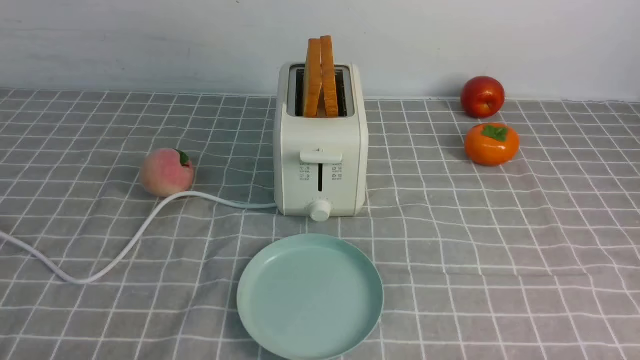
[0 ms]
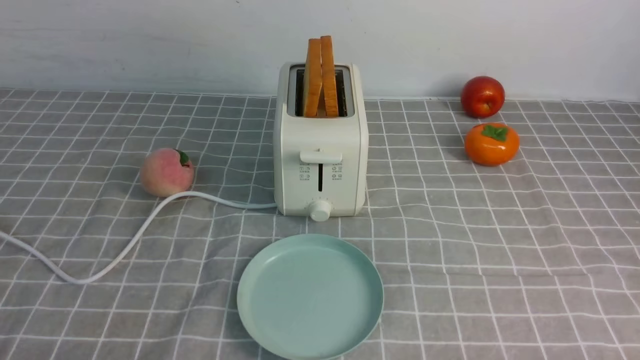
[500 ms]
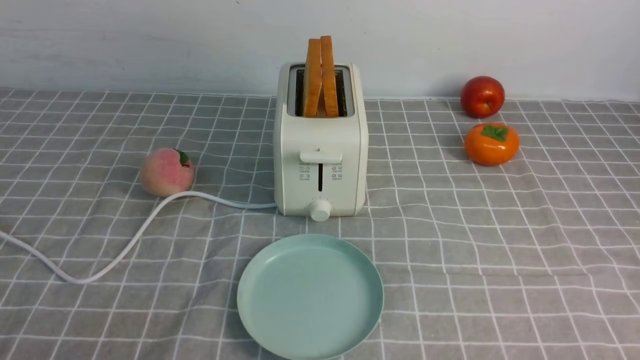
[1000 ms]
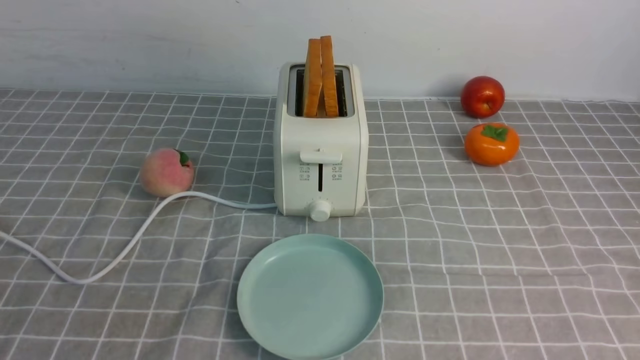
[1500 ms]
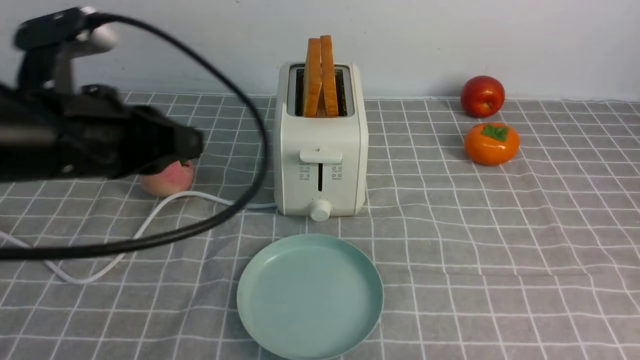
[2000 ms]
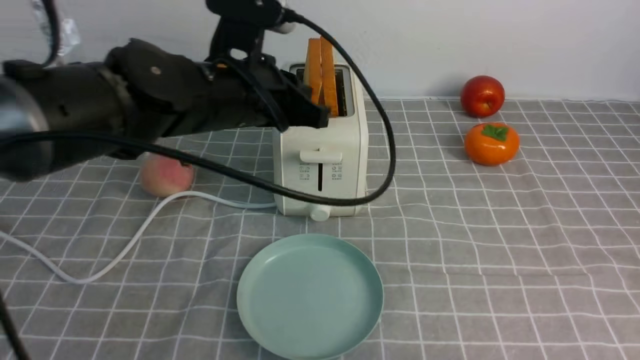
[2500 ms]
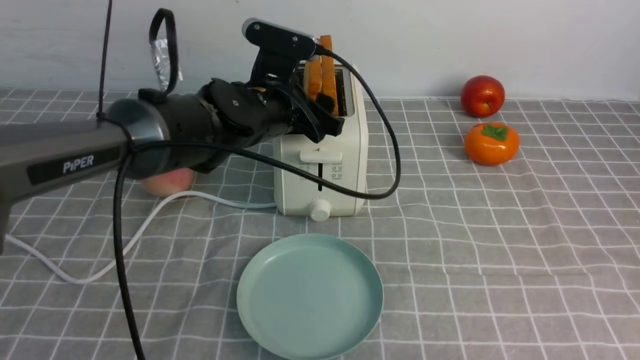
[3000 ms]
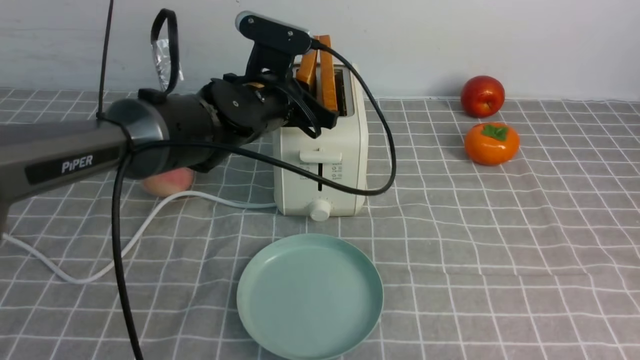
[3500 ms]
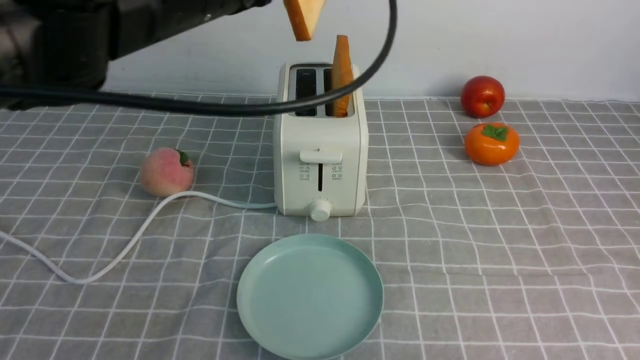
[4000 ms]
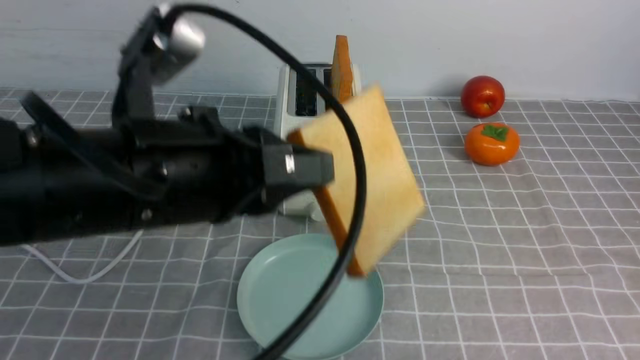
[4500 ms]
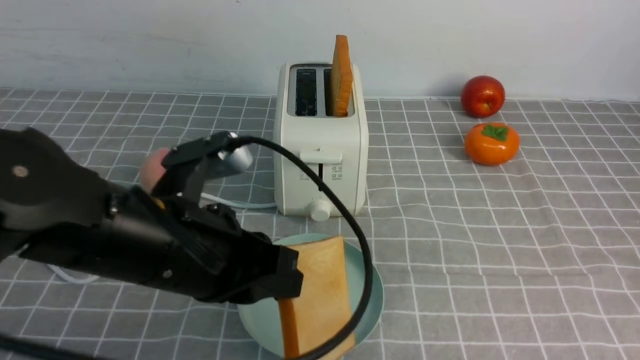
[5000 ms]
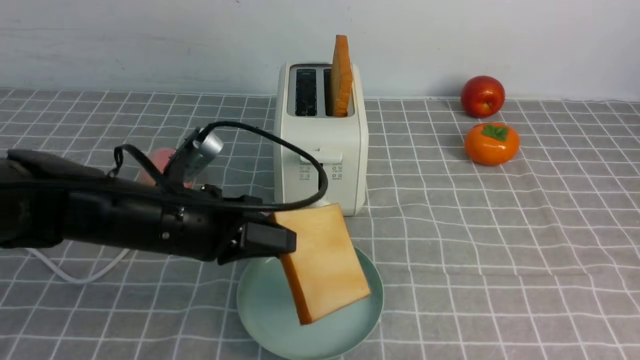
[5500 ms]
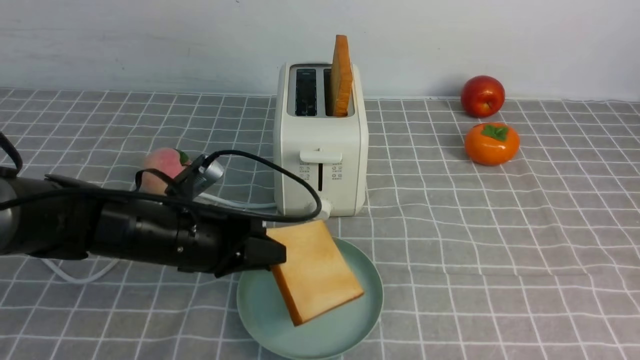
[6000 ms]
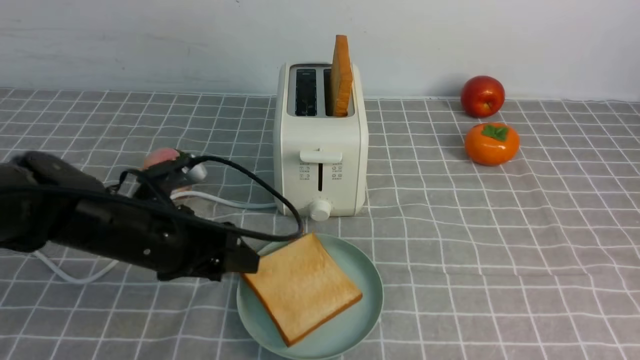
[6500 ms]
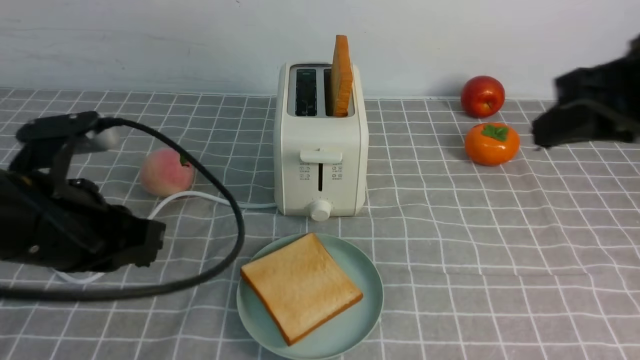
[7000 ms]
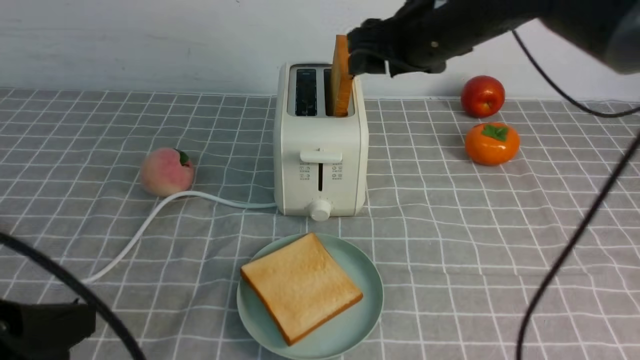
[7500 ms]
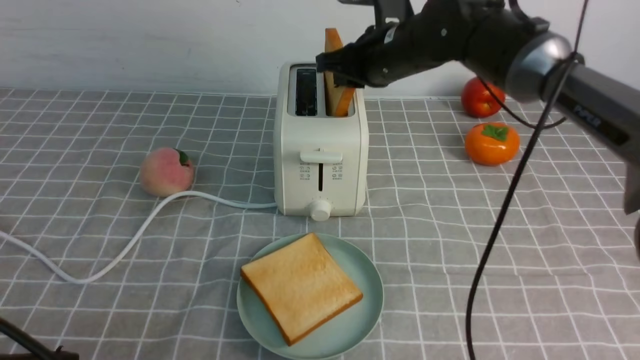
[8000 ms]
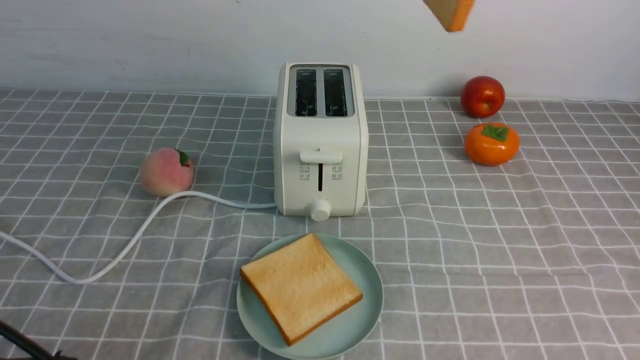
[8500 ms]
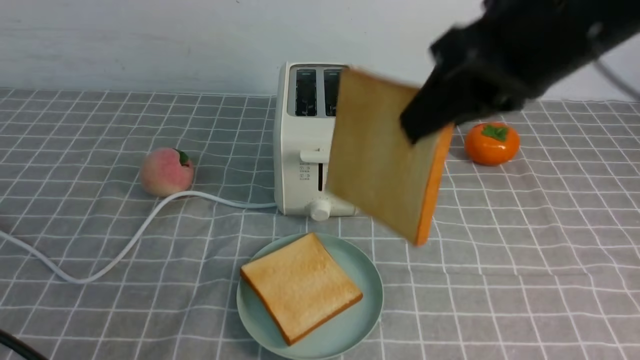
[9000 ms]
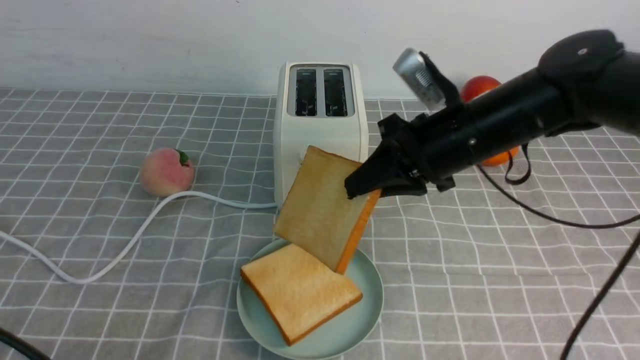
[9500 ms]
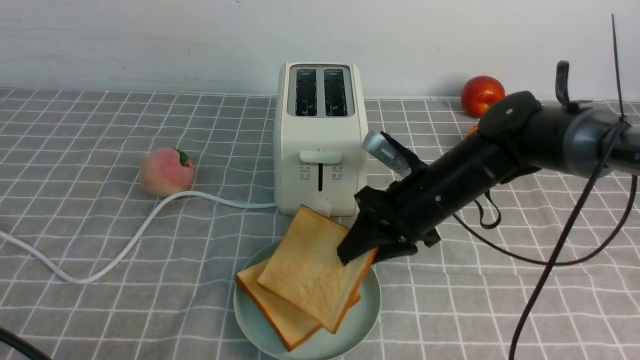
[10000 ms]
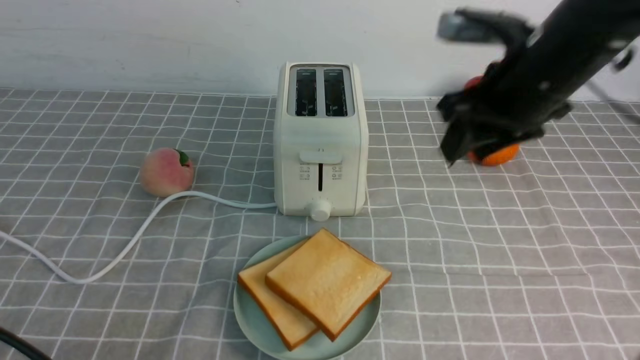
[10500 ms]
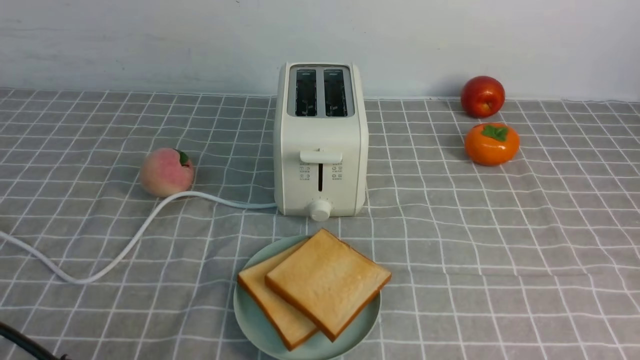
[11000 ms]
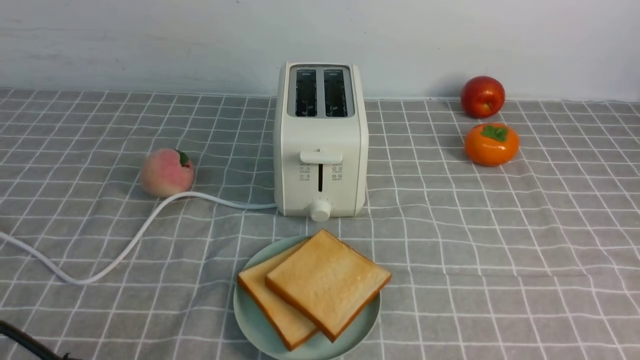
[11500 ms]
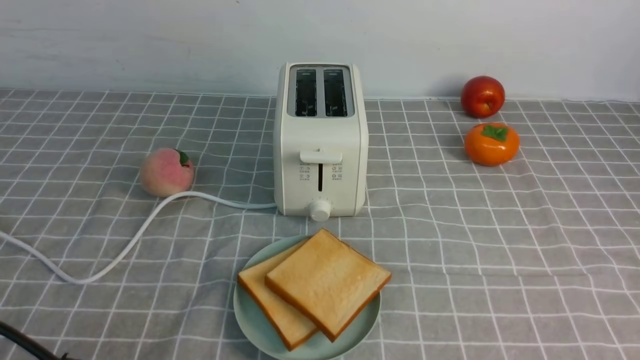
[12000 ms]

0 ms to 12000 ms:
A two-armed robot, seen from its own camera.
Task of the whole recording: take toasted bread from bread machine on grey coffee table place on plate.
Step, 0 ms to 3500 ms: use the left arm to take out a slice of bread.
Step, 4500 ms to 6500 ms: use the left arm to put a slice of bread into the empty plate.
Step, 7000 ms to 8000 ms: use the right arm to take out a slice of bread.
Step, 8500 ms to 10000 ms: use the right arm to put a slice of bread into the plate.
0 ms to 2000 ms: The right gripper is displaced upward by some 20 cm, and closes its fingers, while the left gripper heads forward and upward, covering approximately 25 cm, and closes its fingers.
2000 ms to 4000 ms: The left gripper shifts roughly 10 cm upward and to the right, travels forward and back again, about 15 cm each way, and opens and closes again.
4000 ms to 6000 ms: The left gripper is displaced downward by approximately 25 cm, and opens its fingers.
6000 ms to 8000 ms: The left gripper goes roughly 25 cm backward and upward, and closes up. Meanwhile the right gripper is displaced forward and to the left by some 40 cm, and opens, then closes again.
8000 ms to 10000 ms: The right gripper heads downward and backward, covering approximately 15 cm.
10000 ms to 12000 ms: The right gripper is displaced backward and to the right by roughly 40 cm, and closes its fingers.

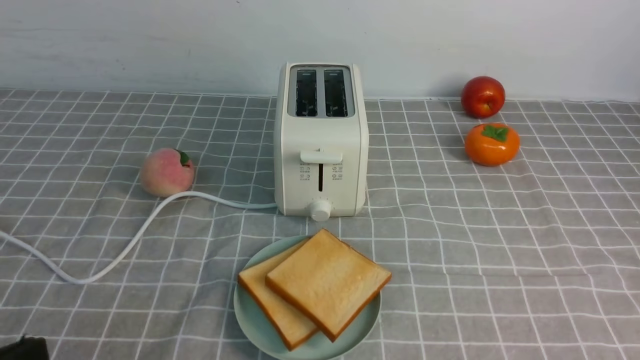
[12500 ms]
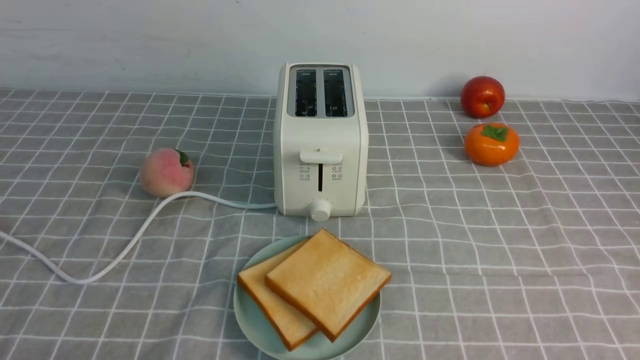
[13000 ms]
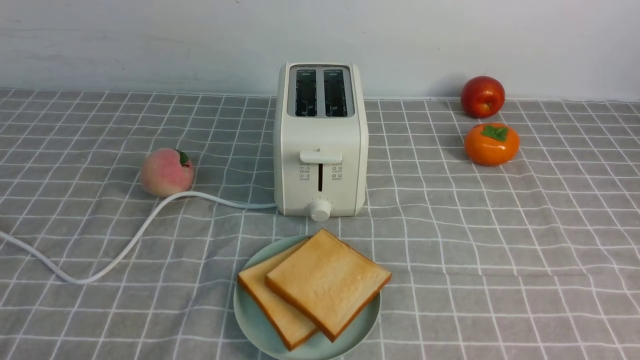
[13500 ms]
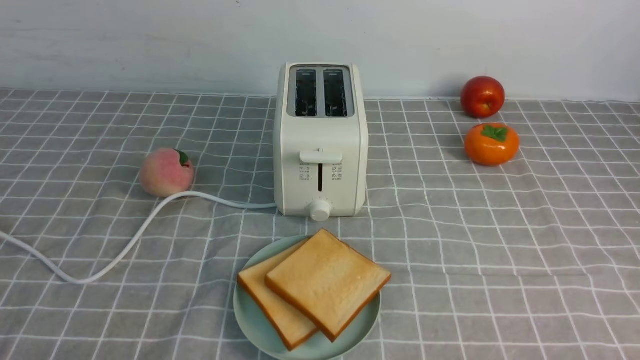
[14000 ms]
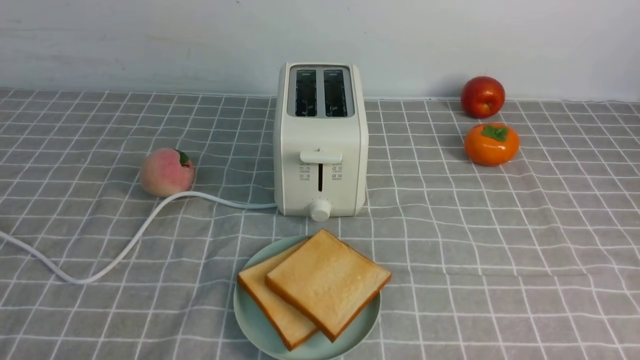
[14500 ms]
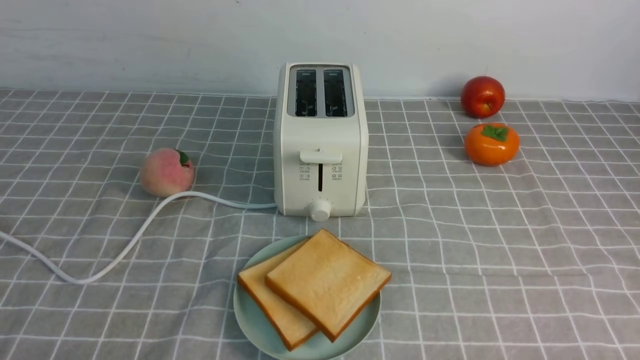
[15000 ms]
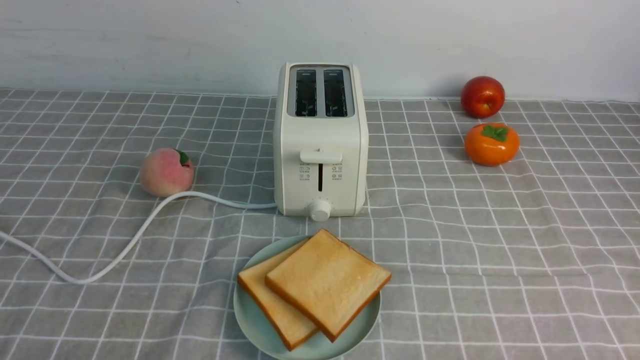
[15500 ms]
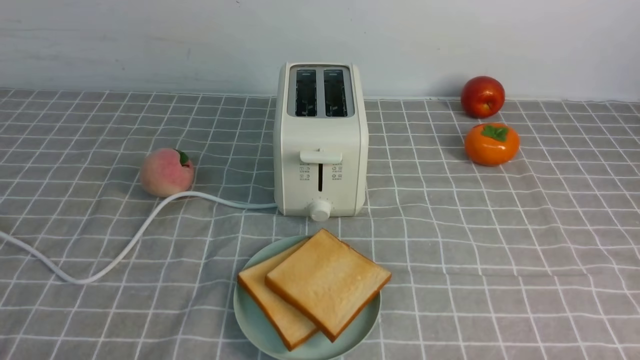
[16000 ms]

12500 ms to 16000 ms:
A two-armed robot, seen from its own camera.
Task of the whole recording: take toasted bread from bread machine on grey coffee table place on plate.
14500 ms to 16000 ms: Both grippers stay about where they are.

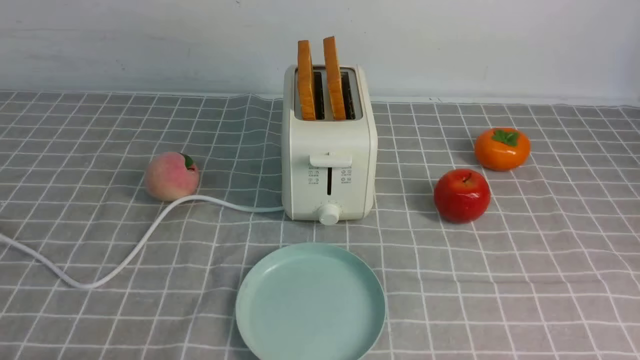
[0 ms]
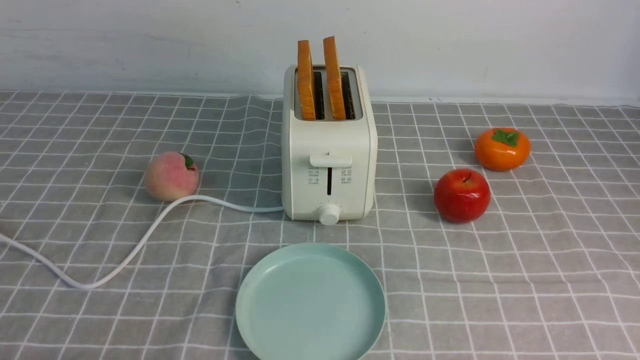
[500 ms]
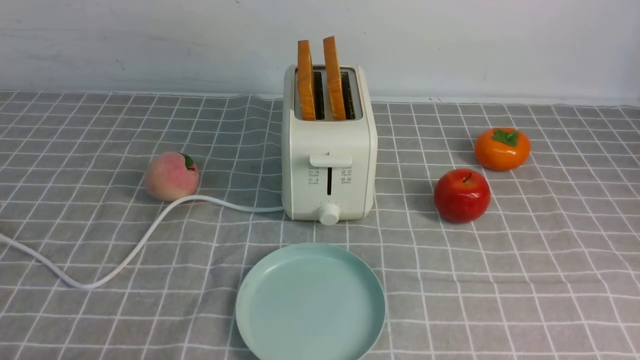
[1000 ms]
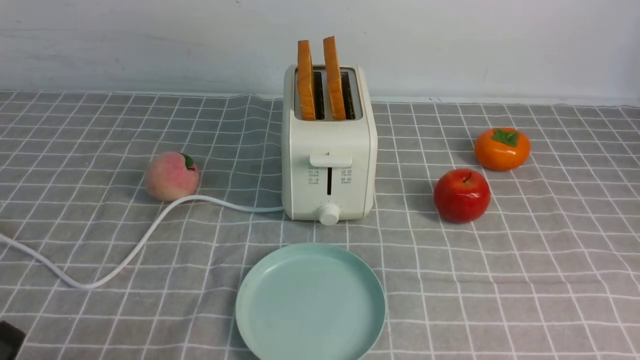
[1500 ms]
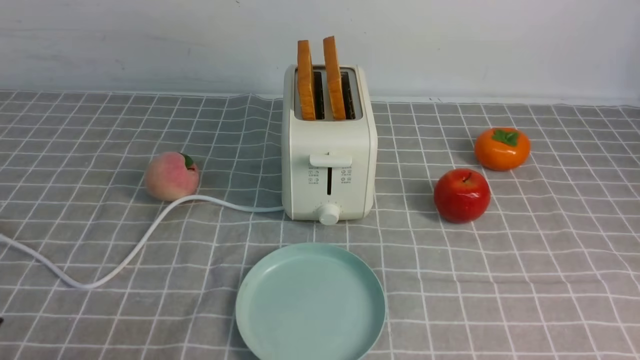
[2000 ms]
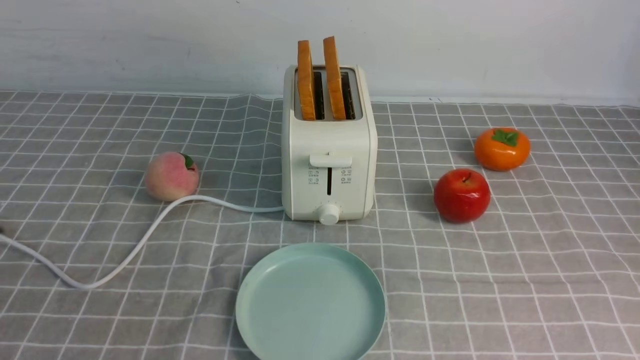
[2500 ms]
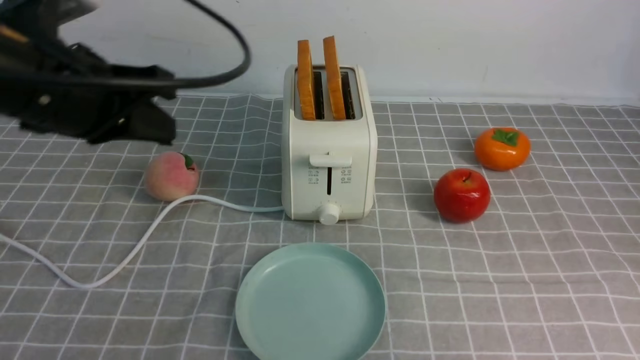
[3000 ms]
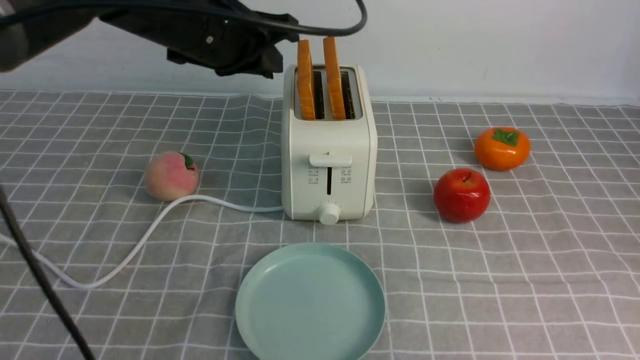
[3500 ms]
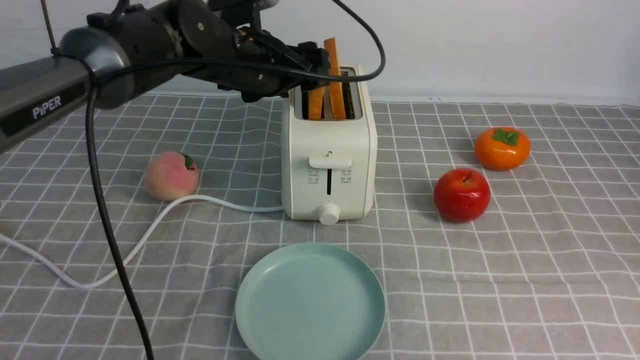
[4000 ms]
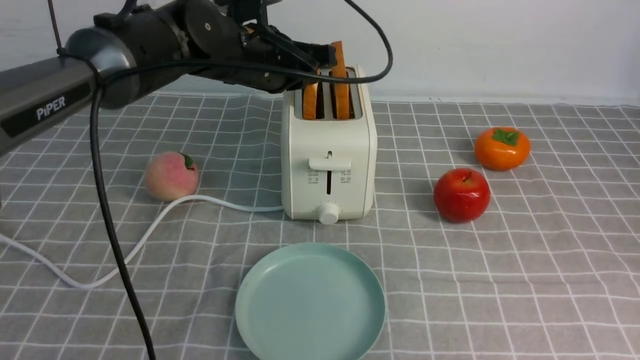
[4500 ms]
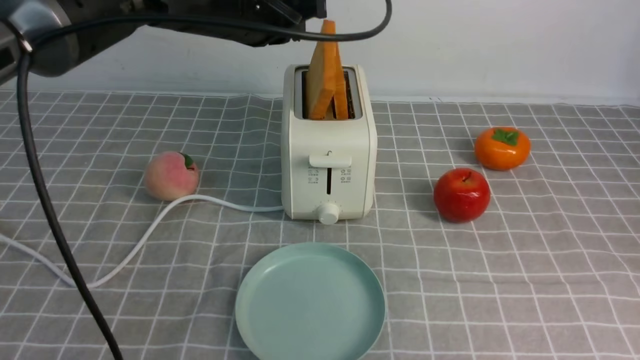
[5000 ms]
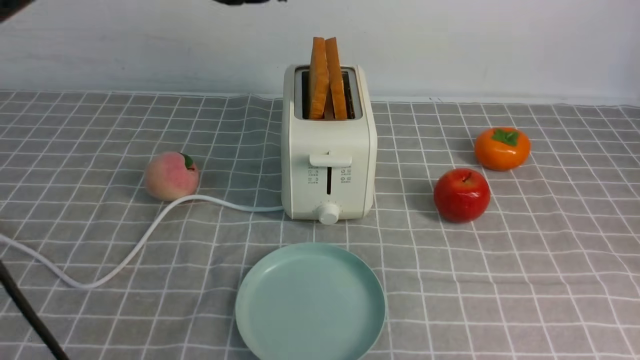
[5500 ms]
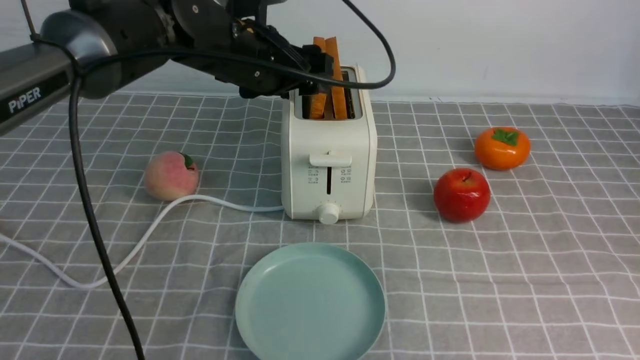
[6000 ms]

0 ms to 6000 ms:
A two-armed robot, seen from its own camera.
Task of the whole recording: take toasted bread from bread machine on grey coffee table place on plate.
2000 ms to 4000 ms: The right gripper travels upward and forward by approximately 20 cm, and closes up, while the left gripper travels forward and to the right by about 40 cm, and opens up.
4000 ms to 6000 ms: The left gripper moves approximately 10 cm upward and comes back, and closes and opens again.
